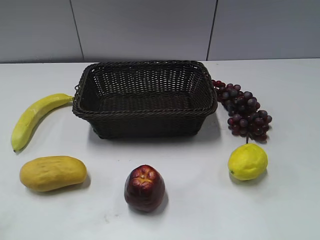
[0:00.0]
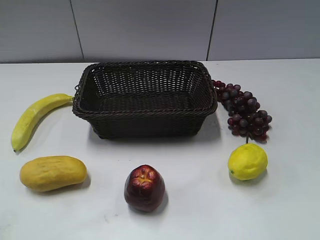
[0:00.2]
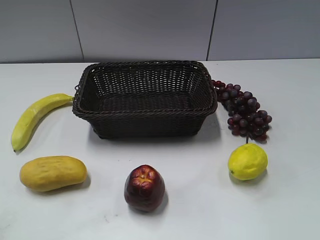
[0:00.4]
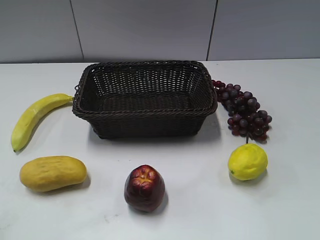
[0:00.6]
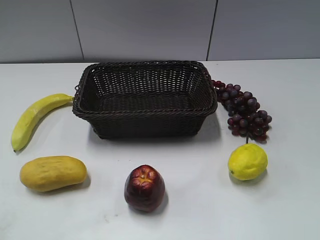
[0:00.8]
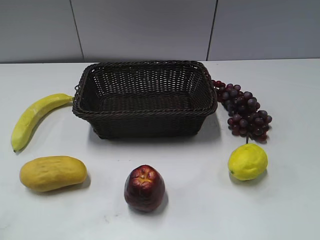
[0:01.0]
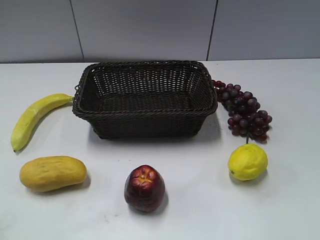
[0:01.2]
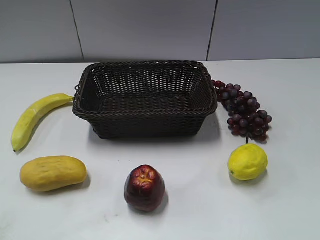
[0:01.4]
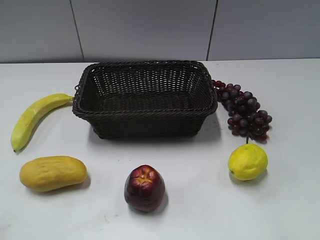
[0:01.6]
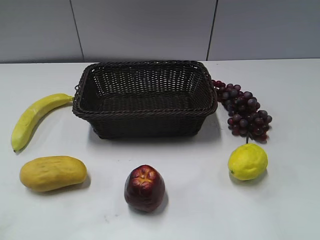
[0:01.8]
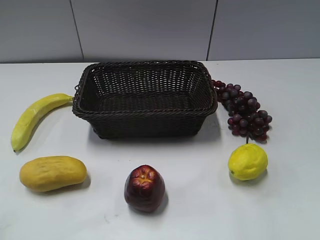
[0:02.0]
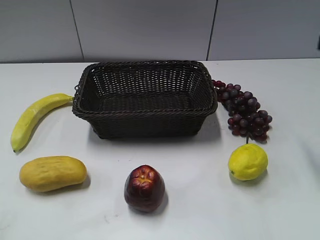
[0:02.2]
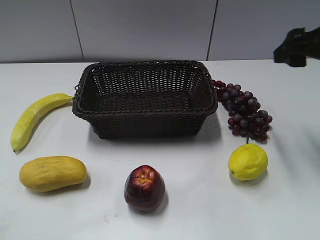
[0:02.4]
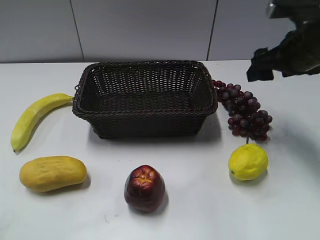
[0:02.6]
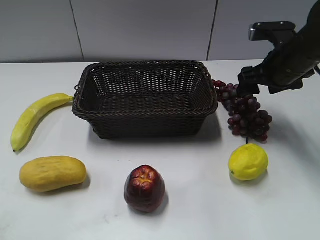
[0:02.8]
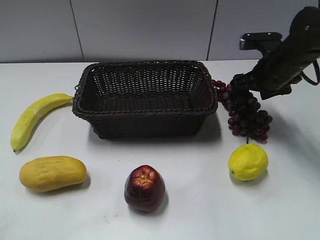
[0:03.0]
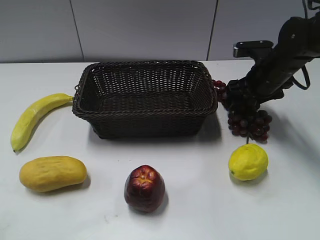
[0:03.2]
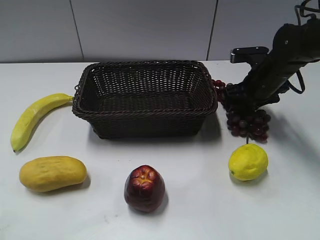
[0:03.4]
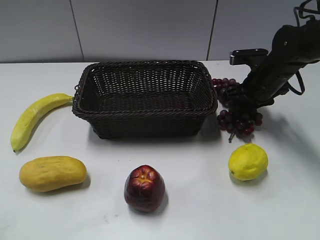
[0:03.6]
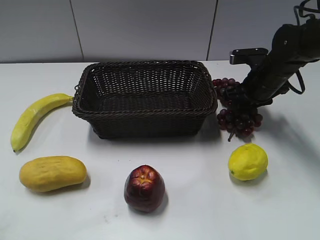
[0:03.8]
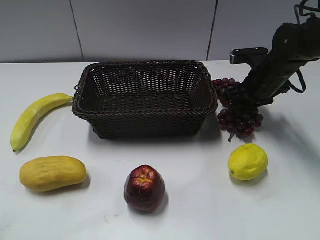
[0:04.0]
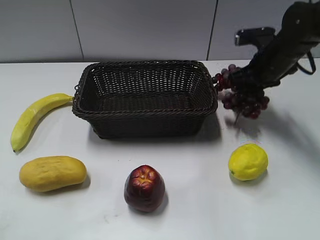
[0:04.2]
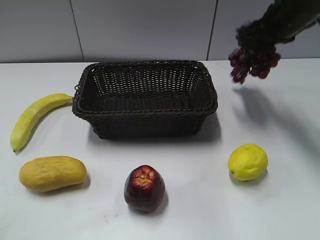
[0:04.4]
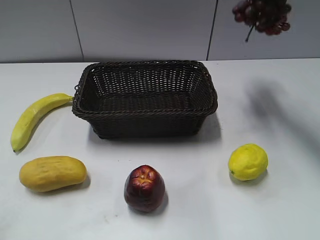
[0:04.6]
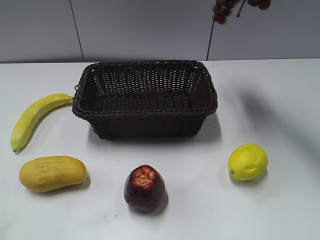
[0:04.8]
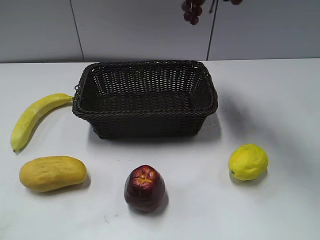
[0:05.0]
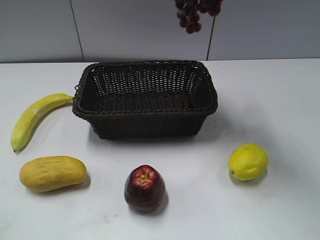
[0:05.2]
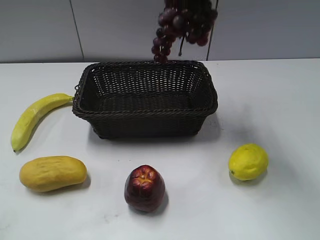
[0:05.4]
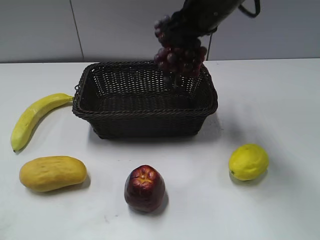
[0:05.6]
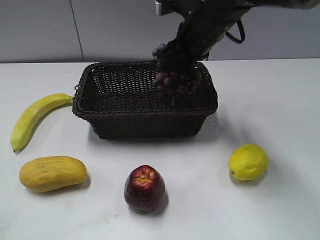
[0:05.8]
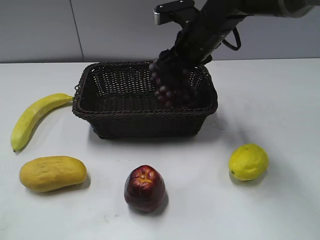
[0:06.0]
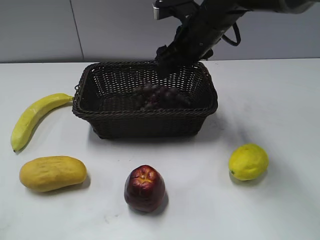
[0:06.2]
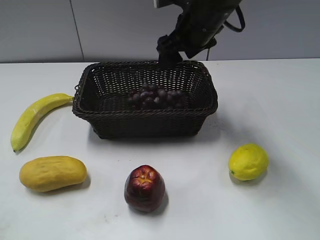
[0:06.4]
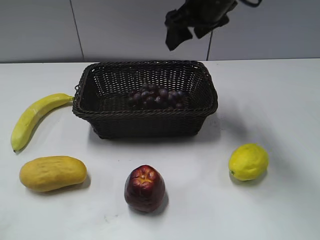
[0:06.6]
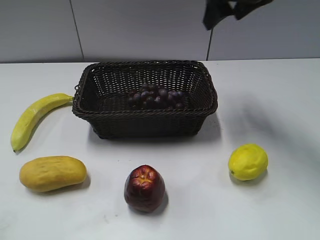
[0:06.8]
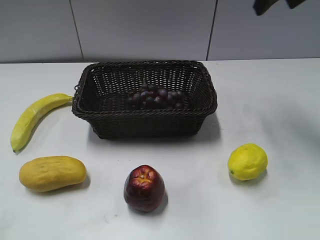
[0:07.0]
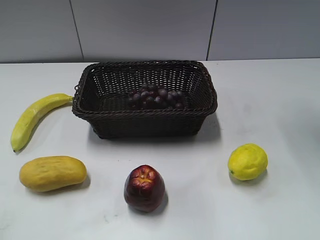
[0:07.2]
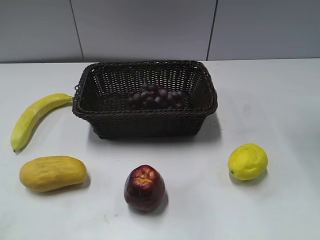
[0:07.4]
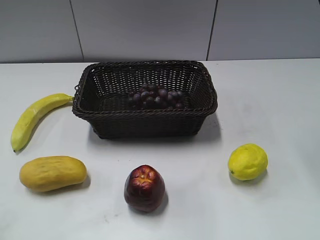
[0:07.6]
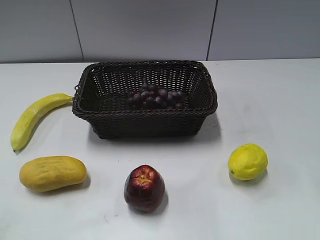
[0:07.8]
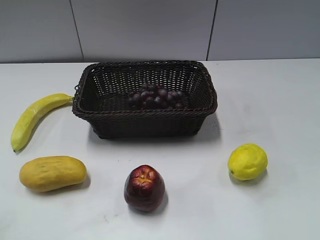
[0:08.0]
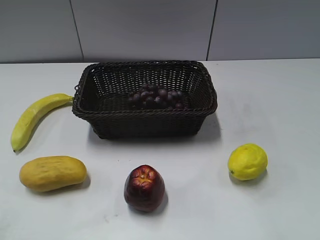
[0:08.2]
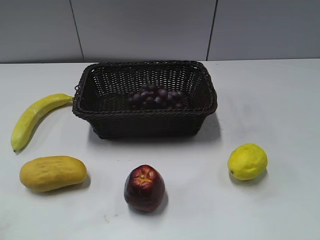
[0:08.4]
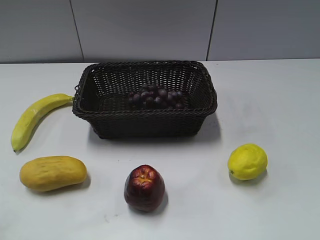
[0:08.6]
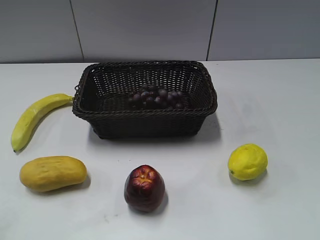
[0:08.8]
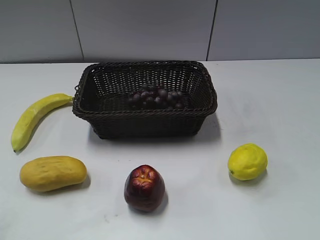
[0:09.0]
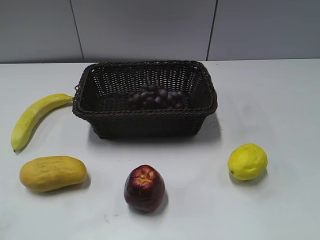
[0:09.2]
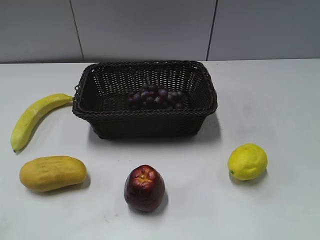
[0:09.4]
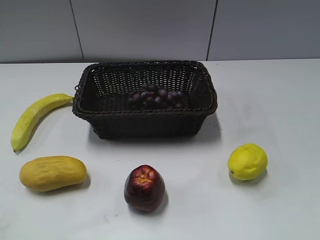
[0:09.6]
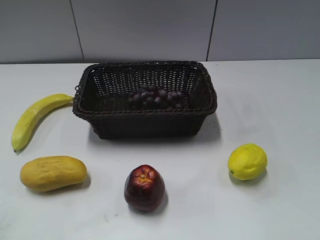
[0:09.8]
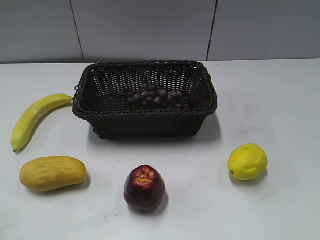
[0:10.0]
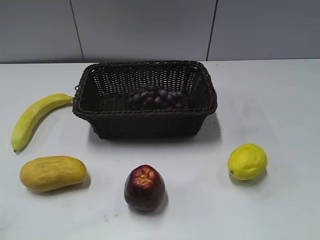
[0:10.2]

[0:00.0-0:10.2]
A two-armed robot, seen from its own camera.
Step, 2.2 to 3.6 s: Grasp the grape with right gripper.
Step, 3.8 to 6.2 s: Place the grape in the basket with right gripper.
1.4 to 3.0 s: The right gripper heads forward, covering approximately 40 cm.
3.0 to 4.4 s: The right gripper shifts approximately 10 cm upward, and closes its fingers.
4.4 to 5.8 s: The right gripper heads to the left, covering approximately 15 cm, and goes upward and returns, roughly 15 cm each way.
5.8 to 7.2 s: The right gripper moves upward and to the right, about 25 cm, and opens its fingers.

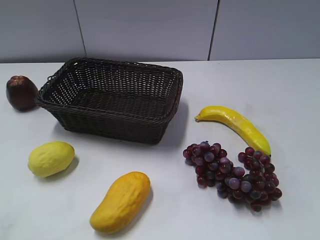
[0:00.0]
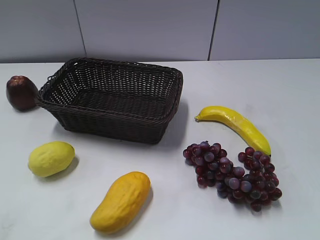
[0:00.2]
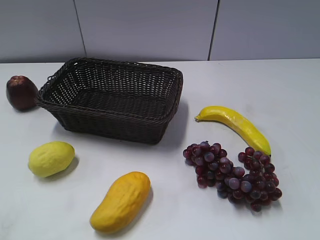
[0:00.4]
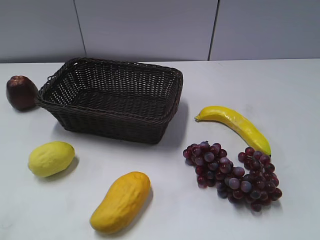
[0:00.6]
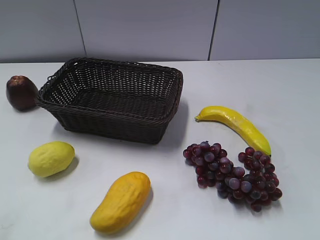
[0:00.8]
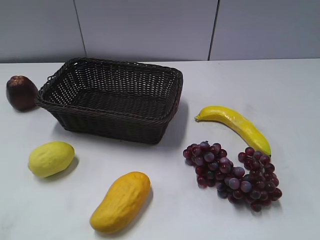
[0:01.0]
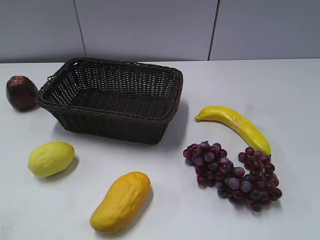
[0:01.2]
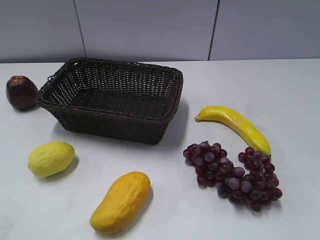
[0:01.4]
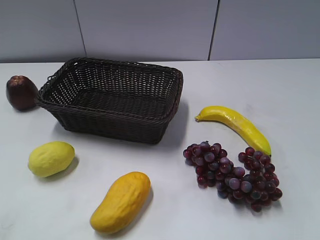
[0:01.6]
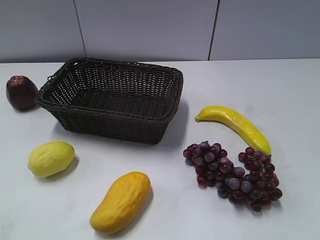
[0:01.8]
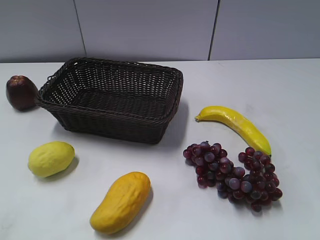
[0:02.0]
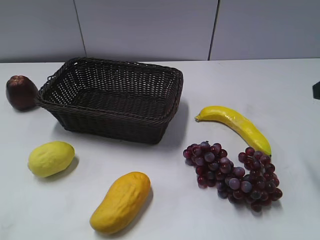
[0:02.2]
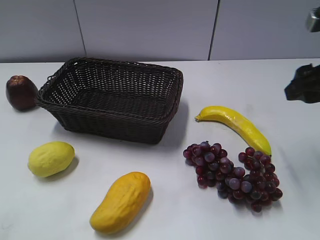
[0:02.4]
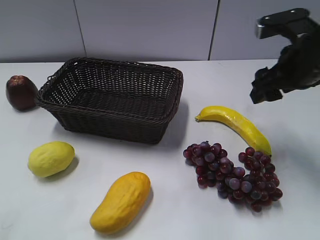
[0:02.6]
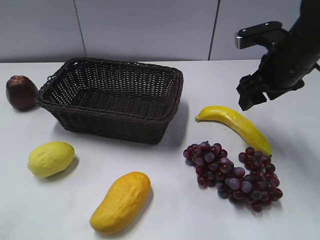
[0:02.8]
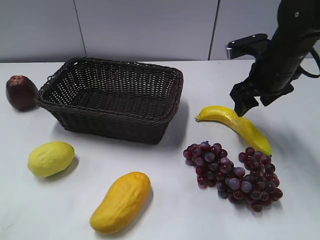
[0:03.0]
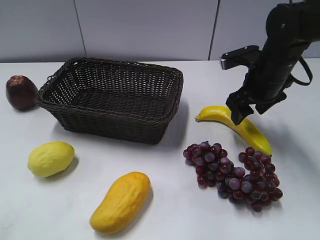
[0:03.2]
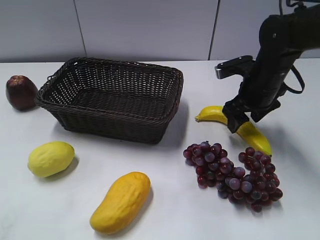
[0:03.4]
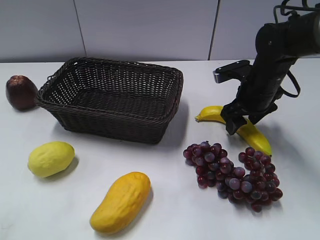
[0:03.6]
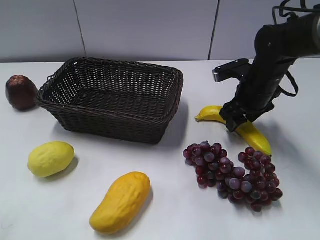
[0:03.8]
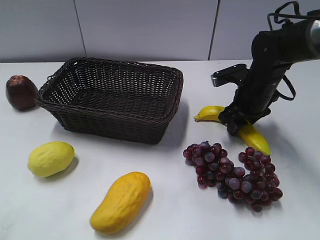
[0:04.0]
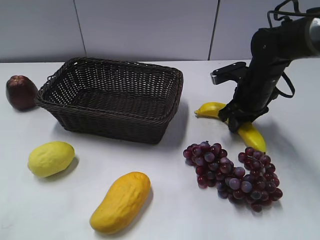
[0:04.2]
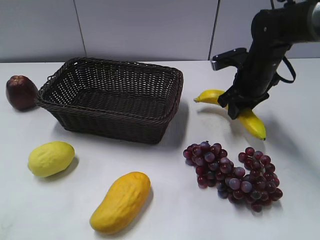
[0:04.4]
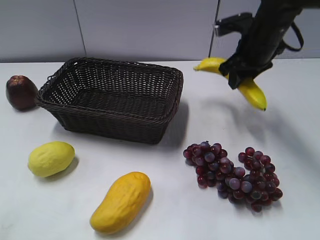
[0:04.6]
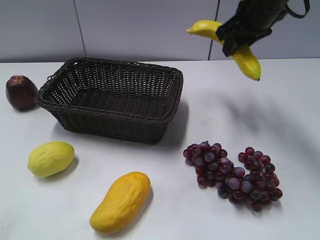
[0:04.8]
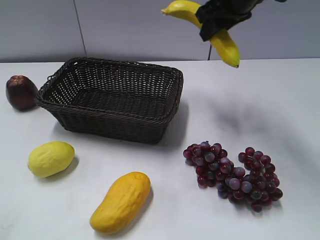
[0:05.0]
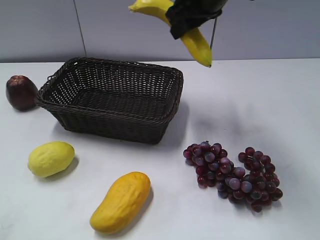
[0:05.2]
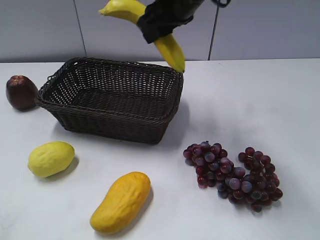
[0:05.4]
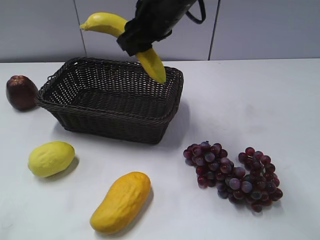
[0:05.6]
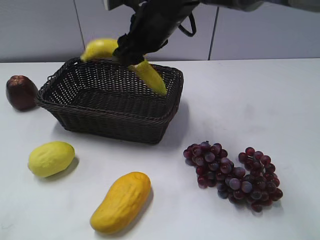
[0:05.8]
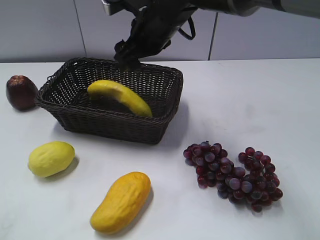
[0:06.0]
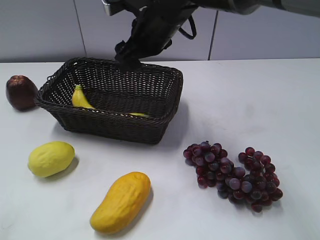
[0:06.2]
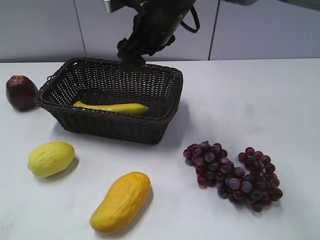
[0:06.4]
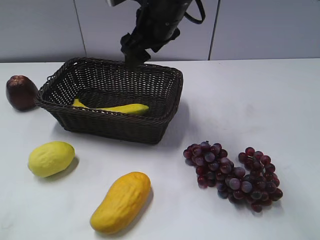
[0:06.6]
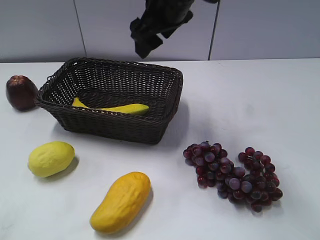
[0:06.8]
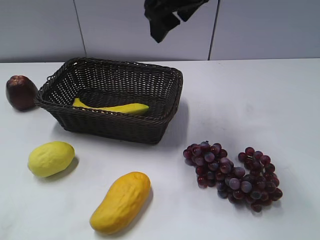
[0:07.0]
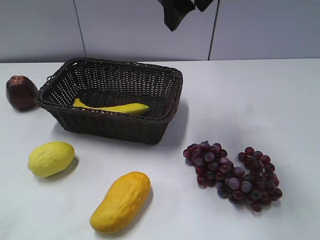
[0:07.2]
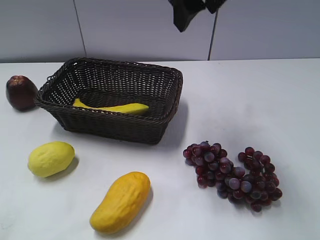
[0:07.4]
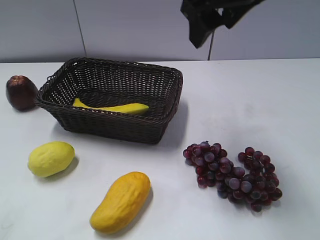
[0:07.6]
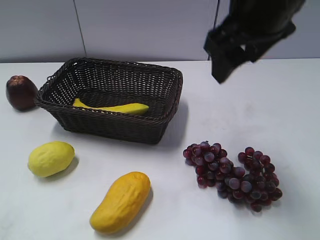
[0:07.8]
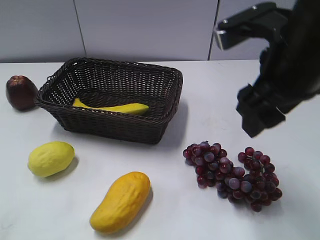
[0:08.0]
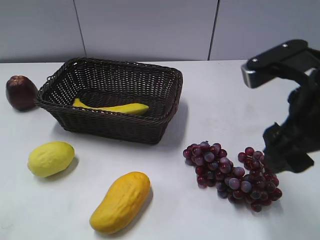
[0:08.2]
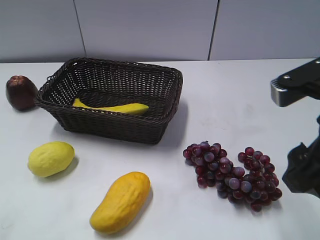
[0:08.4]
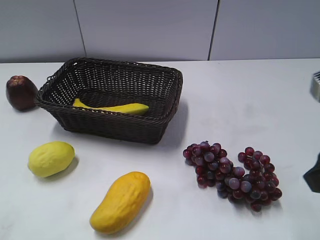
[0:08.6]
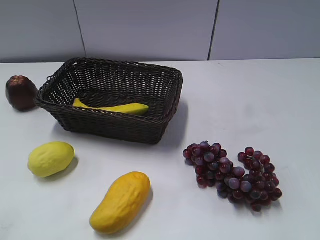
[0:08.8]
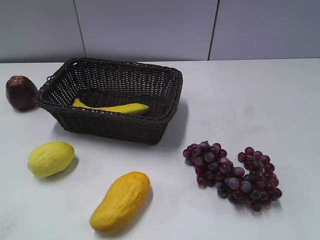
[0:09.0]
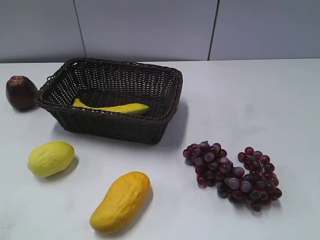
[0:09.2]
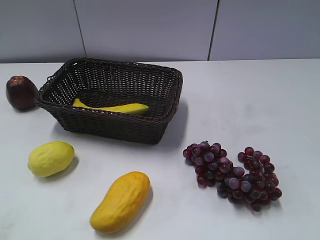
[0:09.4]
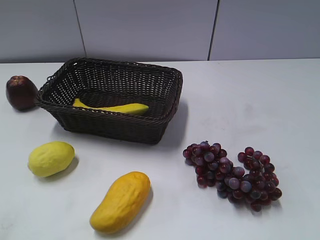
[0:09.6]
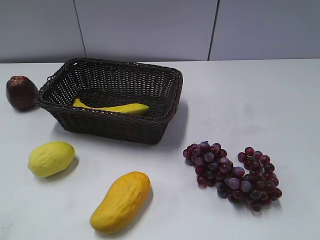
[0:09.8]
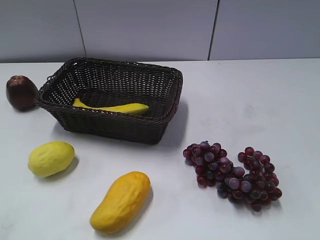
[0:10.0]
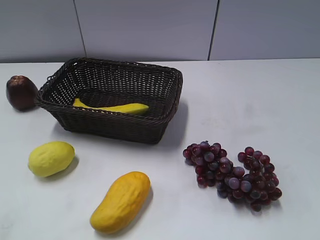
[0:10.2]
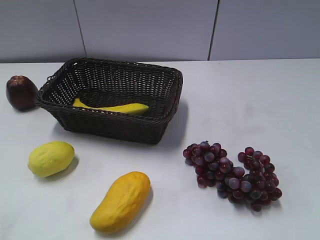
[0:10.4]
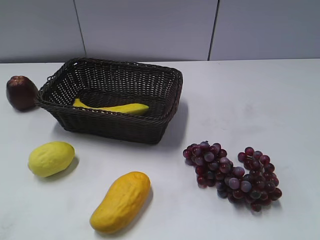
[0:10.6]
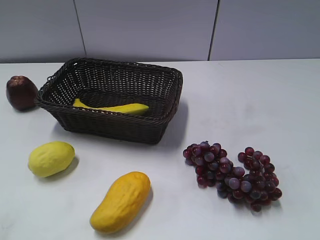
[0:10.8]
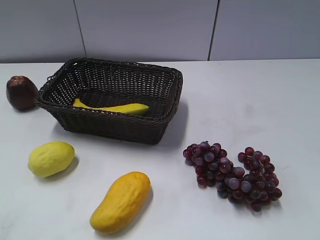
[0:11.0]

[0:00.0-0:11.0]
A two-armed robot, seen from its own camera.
Step, 2.2 to 4.0 s: Grasp the banana with right gripper.
Step, 4.2 to 6.0 s: Place the banana in the basket with right gripper.
1.6 to 3.2 s: The right gripper travels forward, downward and to the left by some 35 cm.
3.2 to 4.8 s: The right gripper travels upward by some 10 cm, and closes.
4.8 to 6.2 s: The right gripper is displaced to the left by about 15 cm, and opens.
6.2 to 7.8 s: The right gripper shifts approximately 20 cm backward, to the right and upward.
7.8 to 9.4 s: The right gripper moves backward and to the right, about 30 cm.

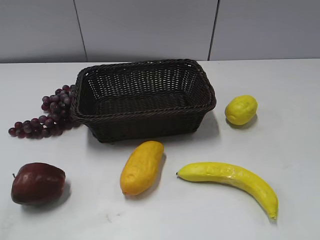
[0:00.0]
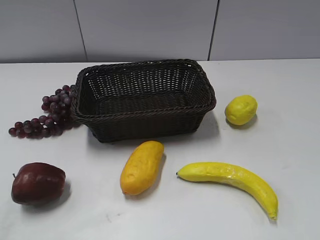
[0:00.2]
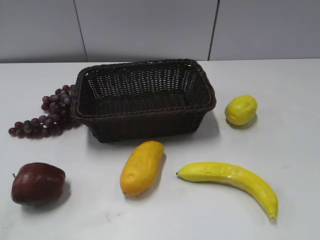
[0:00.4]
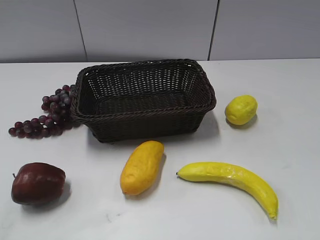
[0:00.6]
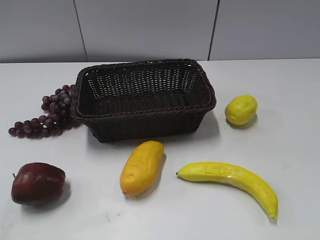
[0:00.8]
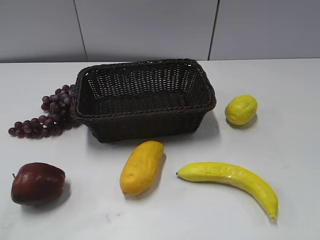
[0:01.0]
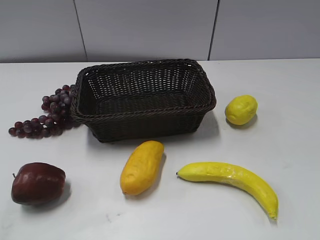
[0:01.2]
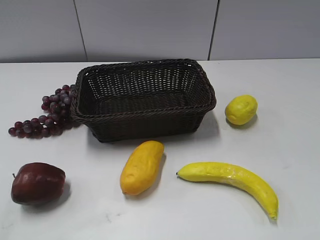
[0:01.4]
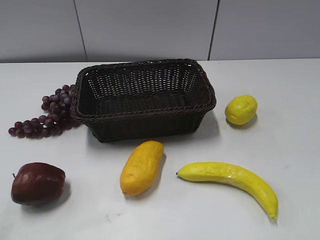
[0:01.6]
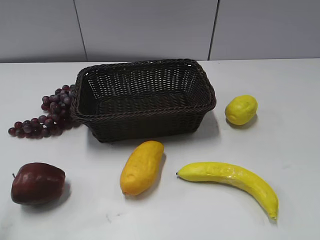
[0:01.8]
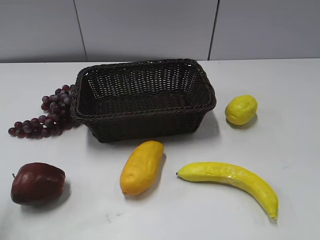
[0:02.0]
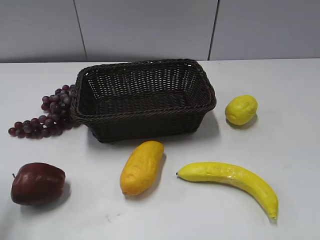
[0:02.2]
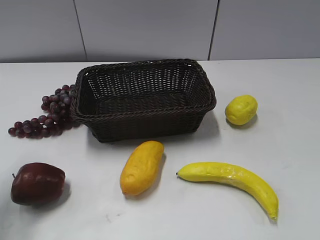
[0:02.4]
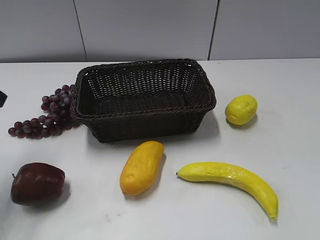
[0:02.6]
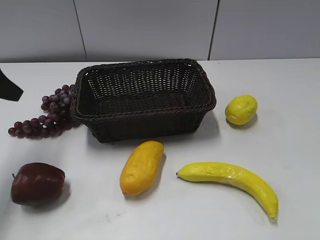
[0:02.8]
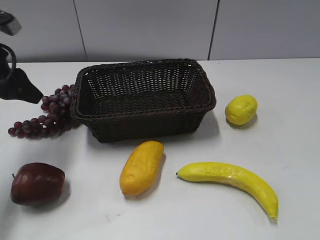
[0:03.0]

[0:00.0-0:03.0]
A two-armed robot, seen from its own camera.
1.6 to 3.0 s: The left gripper travels forward by approximately 25 cm.
